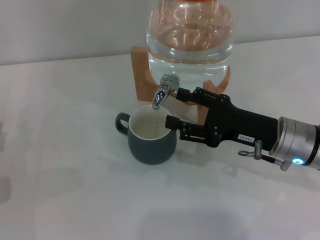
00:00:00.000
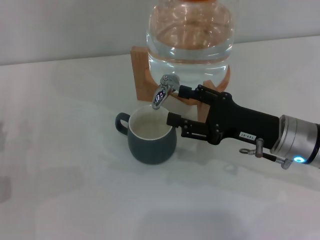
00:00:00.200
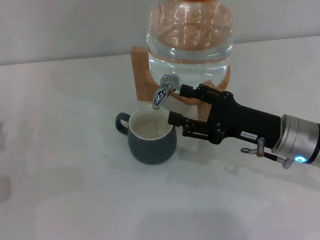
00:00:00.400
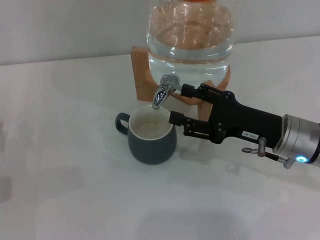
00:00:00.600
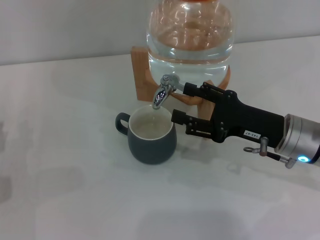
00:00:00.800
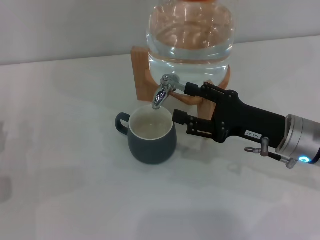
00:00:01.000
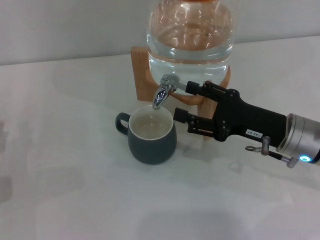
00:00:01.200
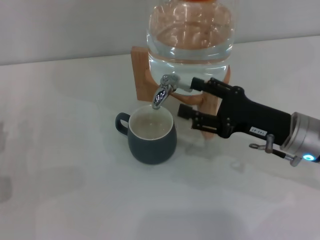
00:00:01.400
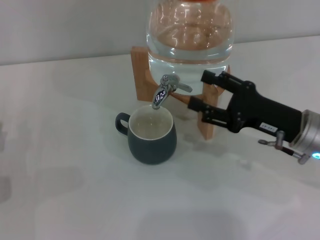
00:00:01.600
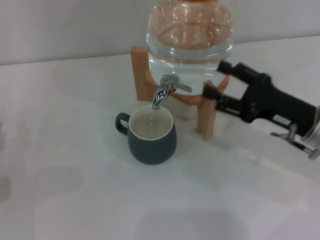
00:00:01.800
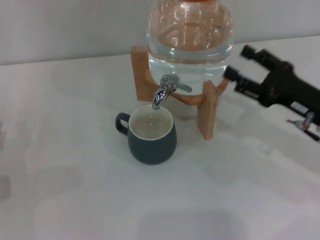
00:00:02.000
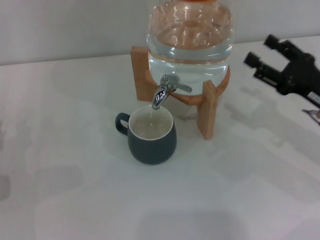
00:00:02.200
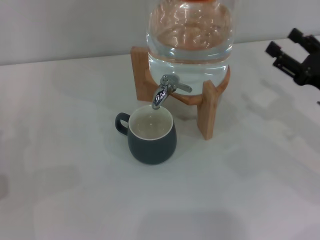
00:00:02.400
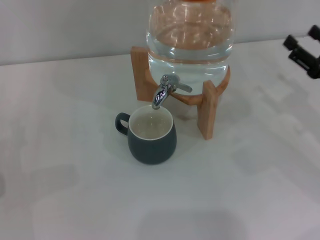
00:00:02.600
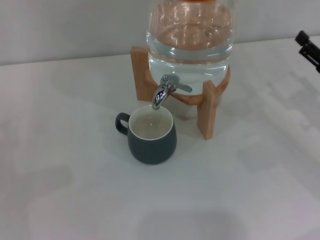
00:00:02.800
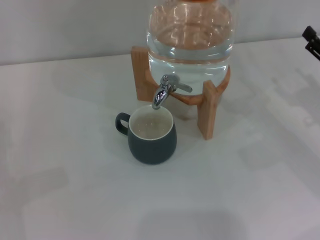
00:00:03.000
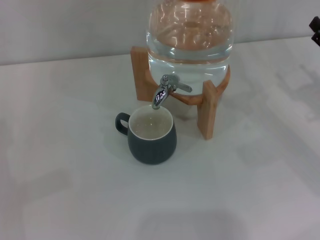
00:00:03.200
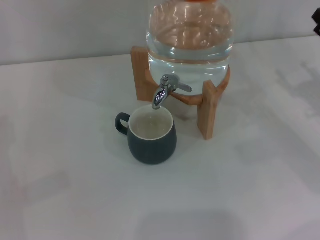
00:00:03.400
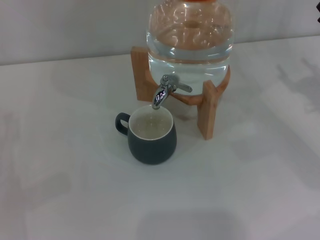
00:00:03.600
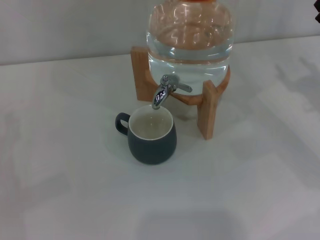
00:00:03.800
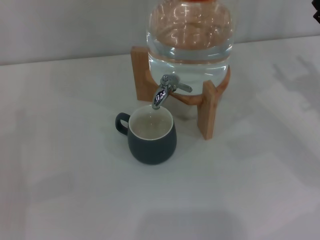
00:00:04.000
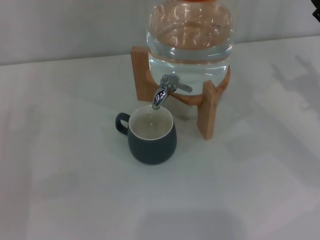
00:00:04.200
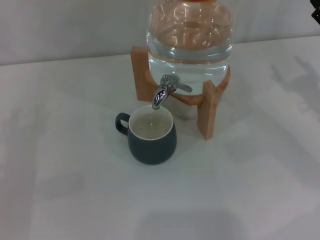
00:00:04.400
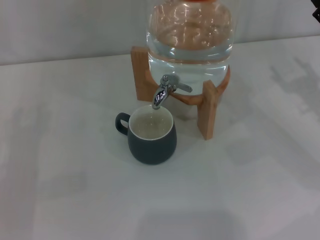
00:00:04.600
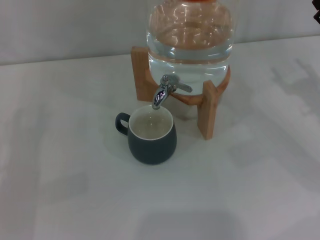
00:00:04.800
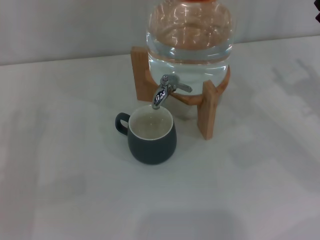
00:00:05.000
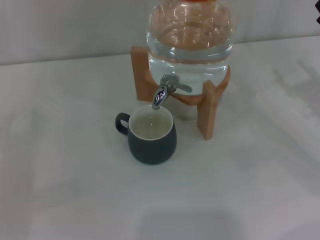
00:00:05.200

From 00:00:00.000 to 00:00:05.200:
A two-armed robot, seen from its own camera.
Task of the whole recording: the left gripper pick up the black cup and place it horizontally under the faucet, the right gripper turn on the faucet to fill the cup, and then turn off the faucet.
From 00:00:00.000 to 00:00:01.800: The grippers move only a little.
From 00:00:01.800 to 00:00:03.400: The right gripper goes about 10 cm to the right.
